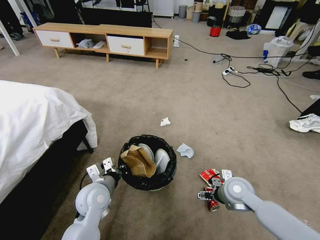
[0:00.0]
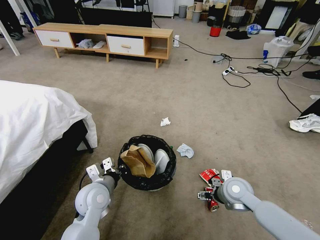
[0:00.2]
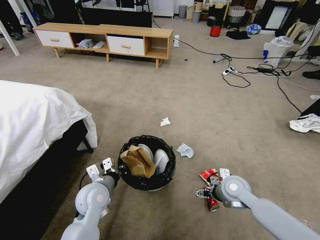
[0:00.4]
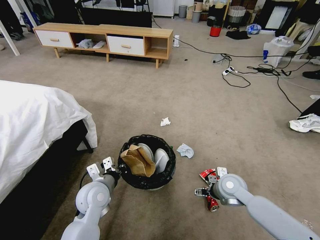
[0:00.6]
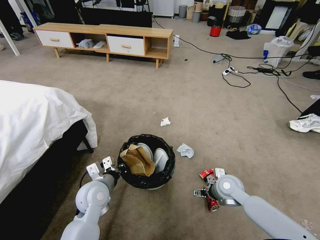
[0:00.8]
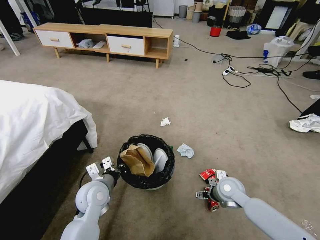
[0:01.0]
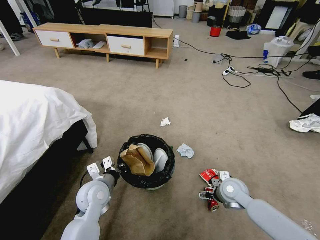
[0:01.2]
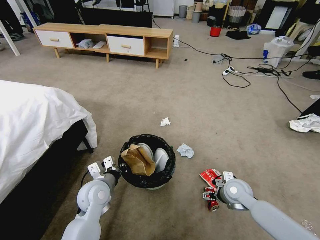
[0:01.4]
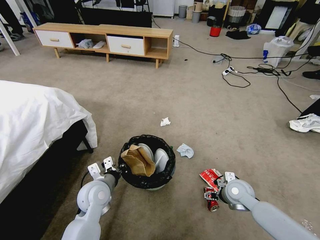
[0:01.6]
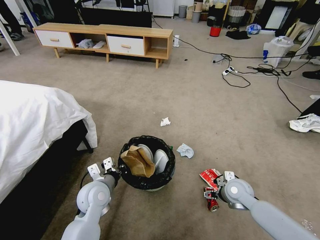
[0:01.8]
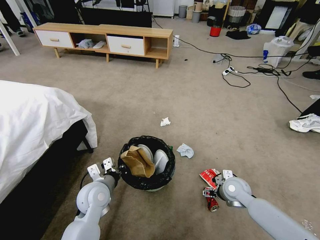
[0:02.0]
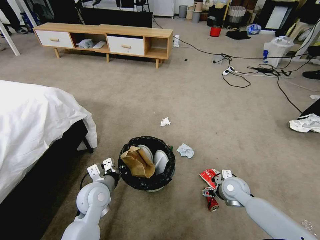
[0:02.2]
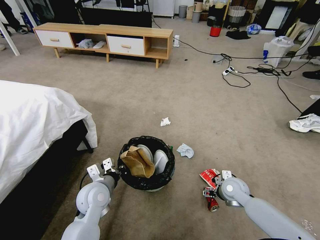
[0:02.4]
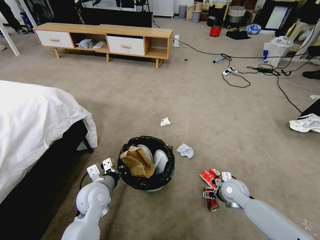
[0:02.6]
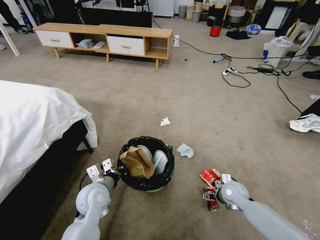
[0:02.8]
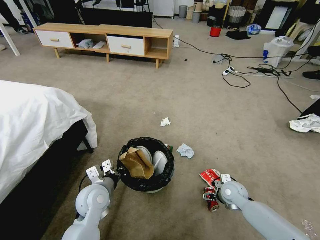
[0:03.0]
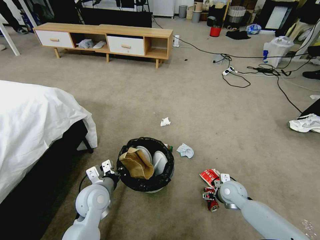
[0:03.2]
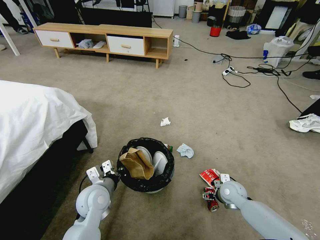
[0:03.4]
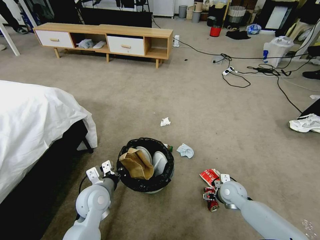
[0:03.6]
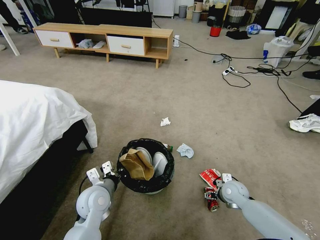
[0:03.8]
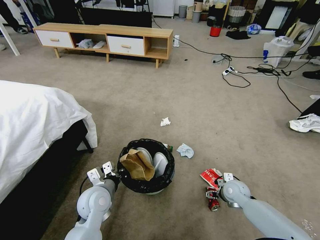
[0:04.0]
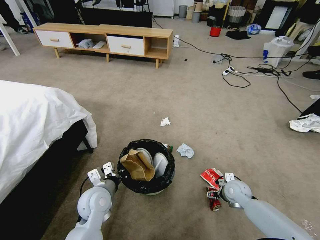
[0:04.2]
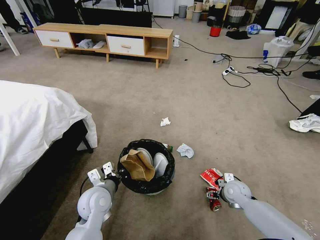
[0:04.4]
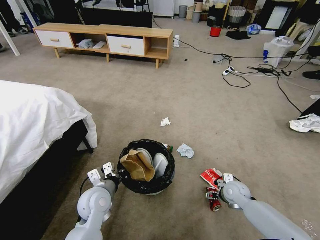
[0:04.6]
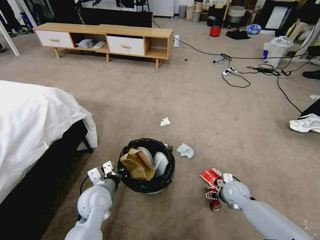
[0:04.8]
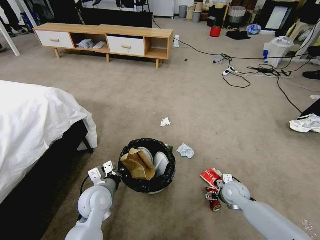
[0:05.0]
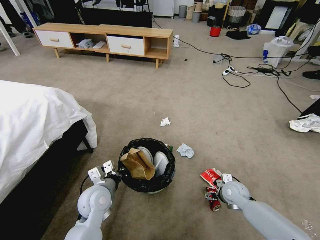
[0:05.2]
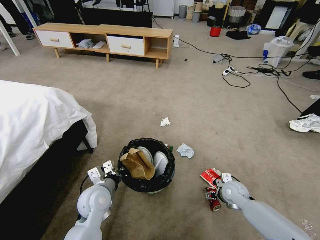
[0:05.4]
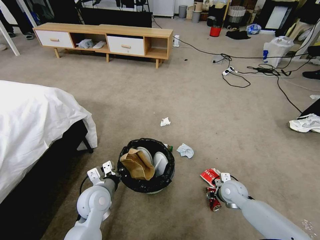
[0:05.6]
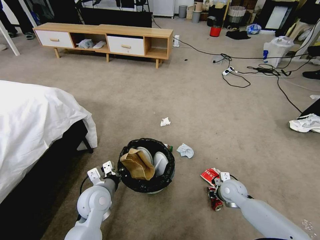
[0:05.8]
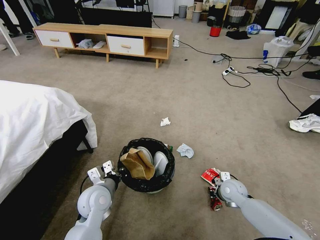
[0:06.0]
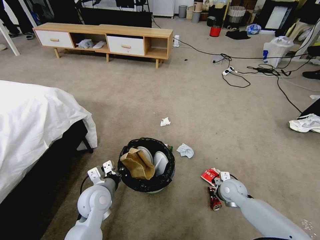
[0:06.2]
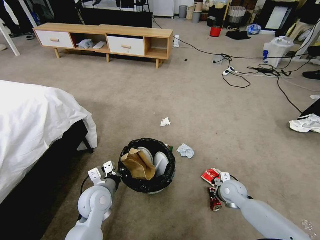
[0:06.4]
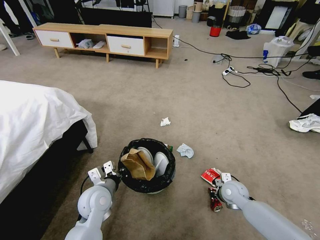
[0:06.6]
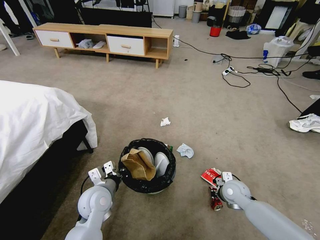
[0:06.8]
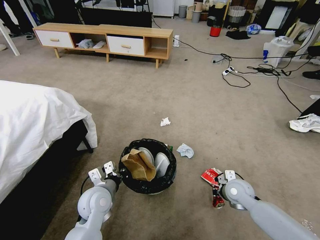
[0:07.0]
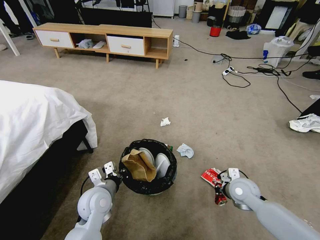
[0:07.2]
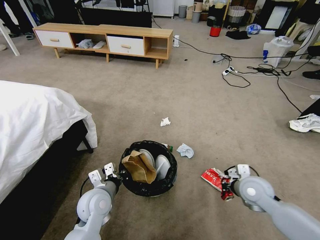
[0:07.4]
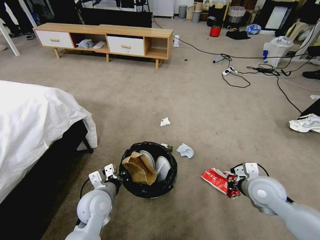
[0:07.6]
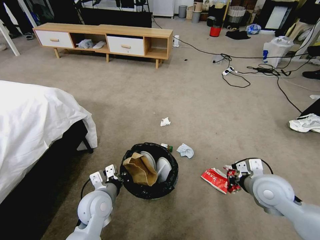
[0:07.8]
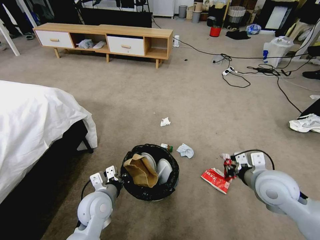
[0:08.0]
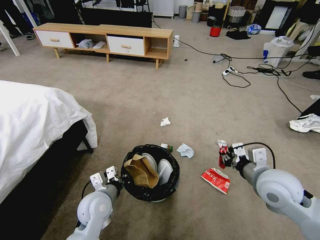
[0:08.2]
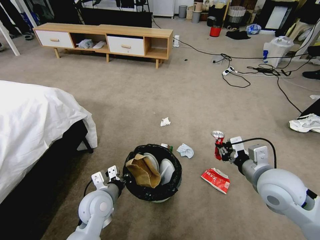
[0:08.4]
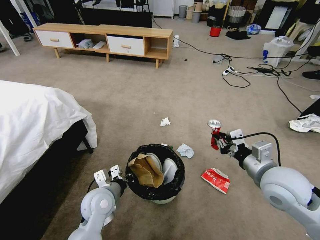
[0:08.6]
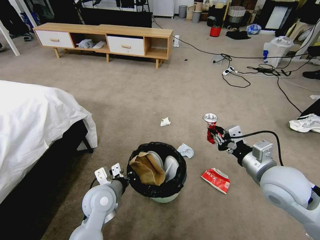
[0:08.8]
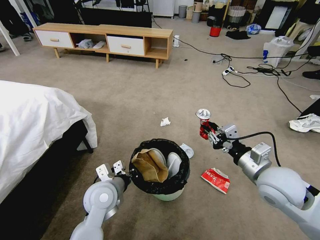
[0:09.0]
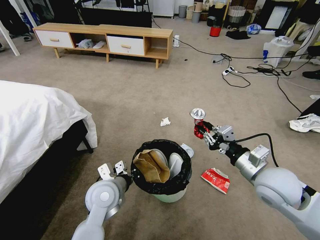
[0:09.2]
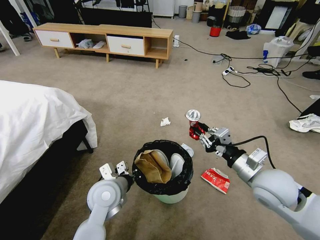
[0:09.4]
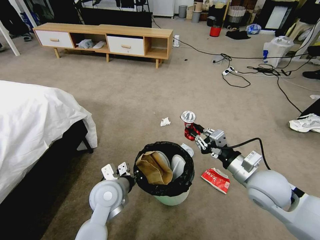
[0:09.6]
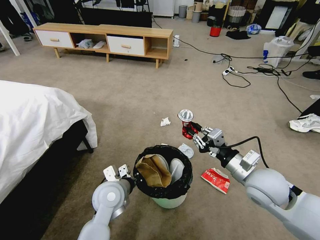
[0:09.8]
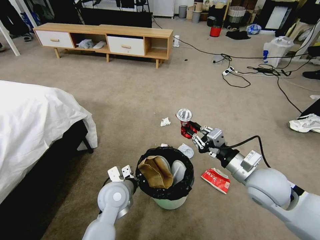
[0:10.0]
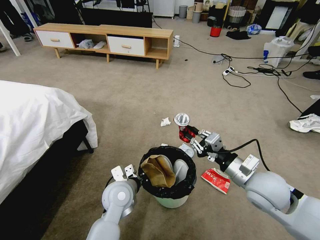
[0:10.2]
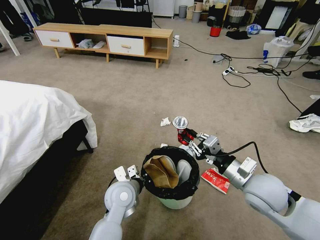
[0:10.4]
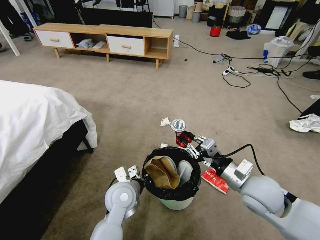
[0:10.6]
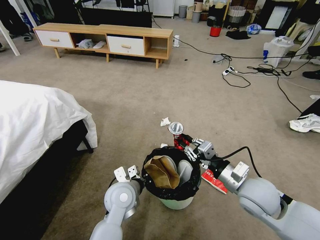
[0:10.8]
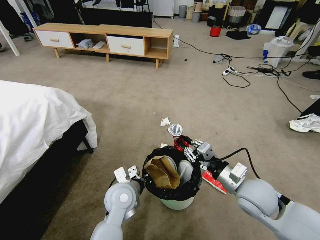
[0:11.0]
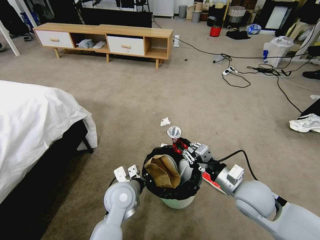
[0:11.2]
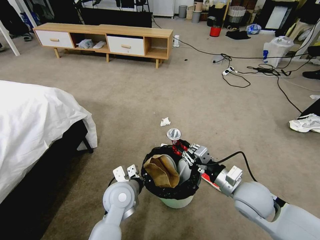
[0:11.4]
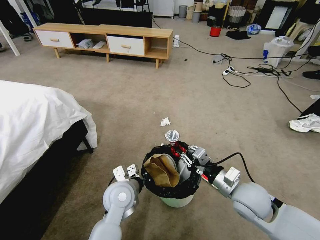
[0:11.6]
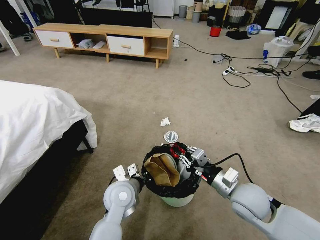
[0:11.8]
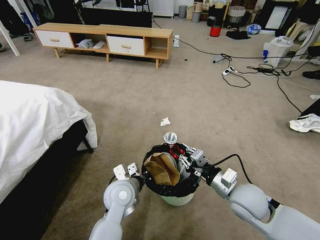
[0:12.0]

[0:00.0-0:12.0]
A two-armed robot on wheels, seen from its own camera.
Task of the whole recording: Pick up the trash bin, then pick up the garbage from the floor and place it into the trash bin.
0:00.0 to 0:01.6: The right gripper travels downward by about 5 cm.
0:01.6 to 0:03.0: The grippers stay close to where they were, moving slightly.
0:03.0 to 0:04.4: The grippers stay close to where they were, moving slightly.
0:04.4 to 0:06.0: The right gripper closes its fingers.
0:06.0 to 0:07.6: The right gripper goes some 15 cm upward and backward.
0:07.6 to 0:09.0: The right gripper is displaced upward by some 10 cm.
0:09.0 to 0:10.4: The left gripper shifts some 5 cm to the right.
0:10.4 to 0:12.0: The right gripper is displaced downward by some 5 cm.

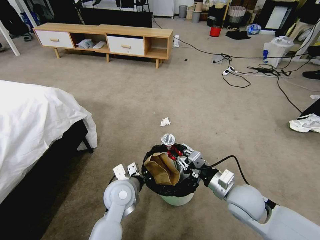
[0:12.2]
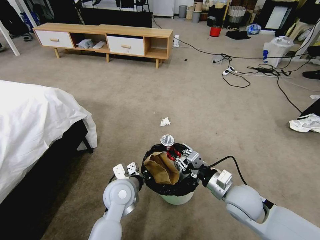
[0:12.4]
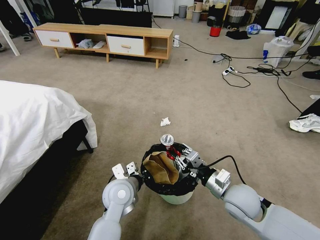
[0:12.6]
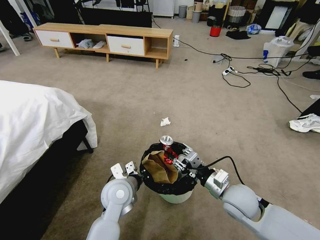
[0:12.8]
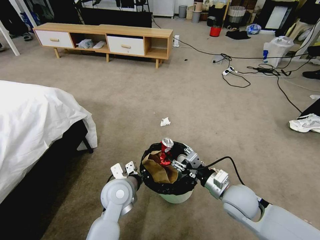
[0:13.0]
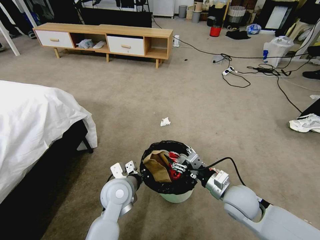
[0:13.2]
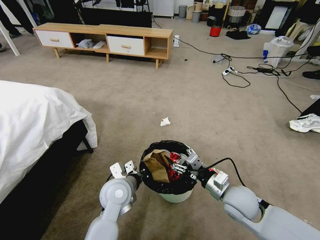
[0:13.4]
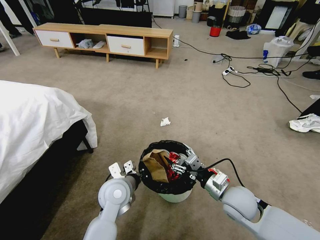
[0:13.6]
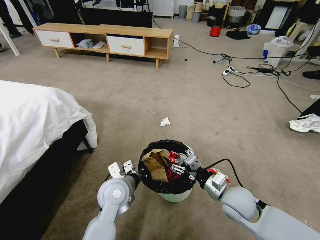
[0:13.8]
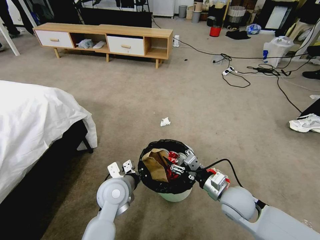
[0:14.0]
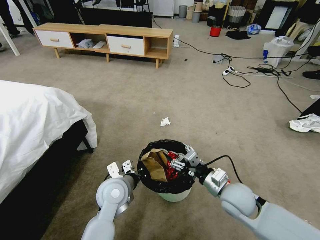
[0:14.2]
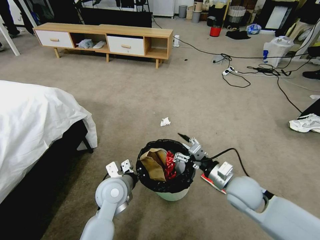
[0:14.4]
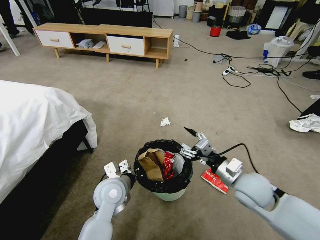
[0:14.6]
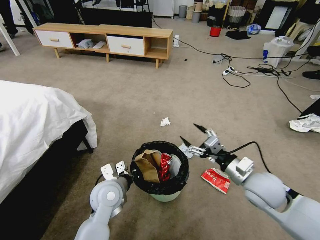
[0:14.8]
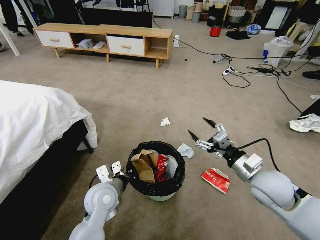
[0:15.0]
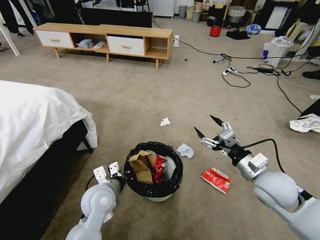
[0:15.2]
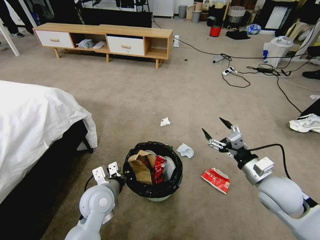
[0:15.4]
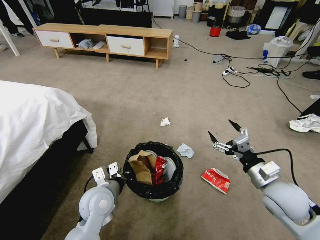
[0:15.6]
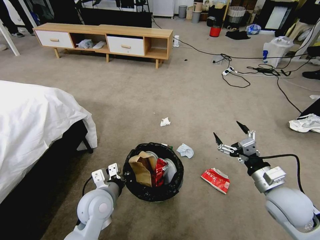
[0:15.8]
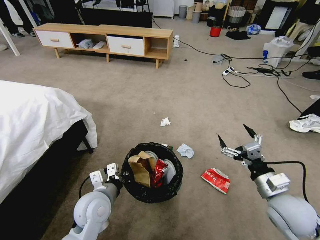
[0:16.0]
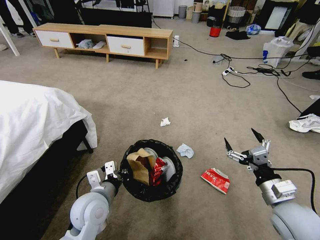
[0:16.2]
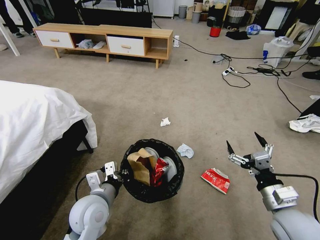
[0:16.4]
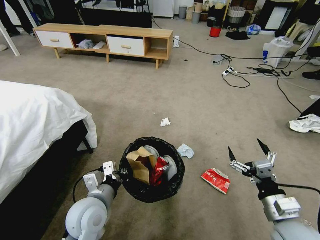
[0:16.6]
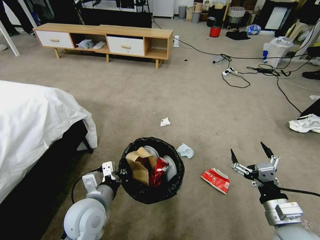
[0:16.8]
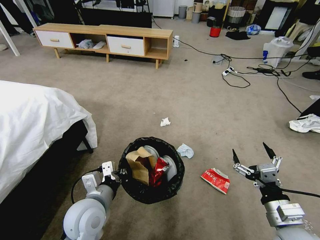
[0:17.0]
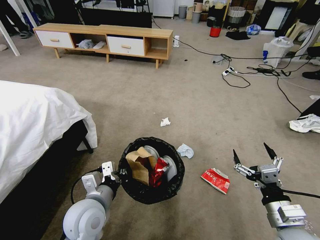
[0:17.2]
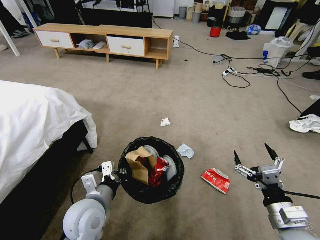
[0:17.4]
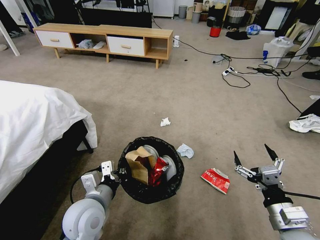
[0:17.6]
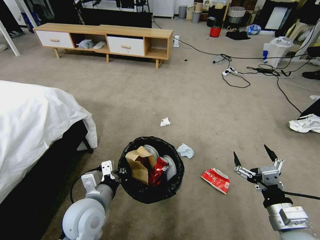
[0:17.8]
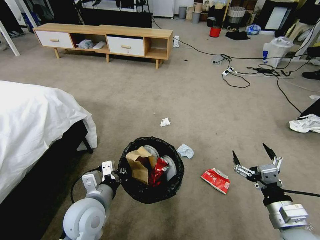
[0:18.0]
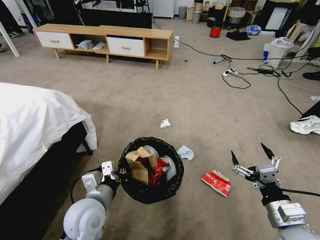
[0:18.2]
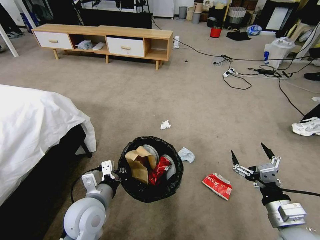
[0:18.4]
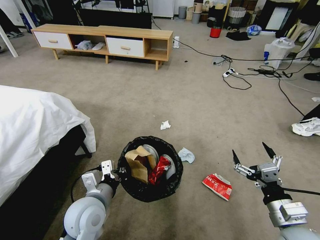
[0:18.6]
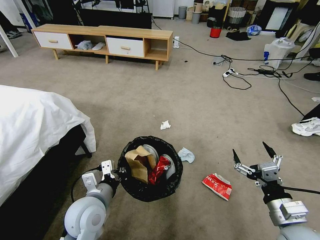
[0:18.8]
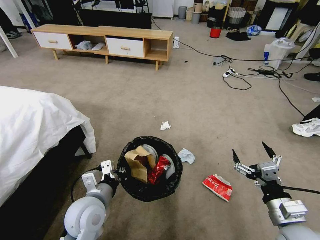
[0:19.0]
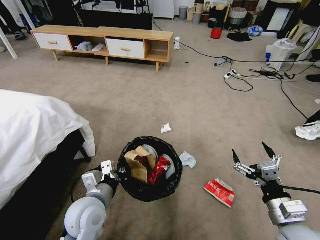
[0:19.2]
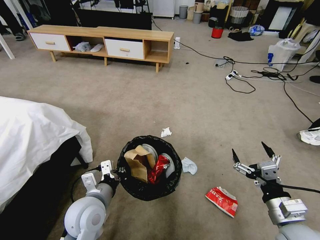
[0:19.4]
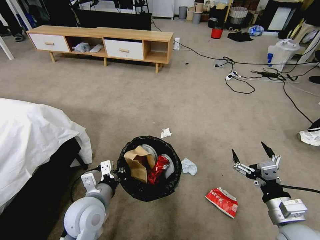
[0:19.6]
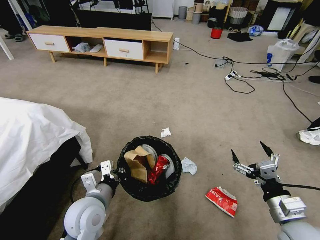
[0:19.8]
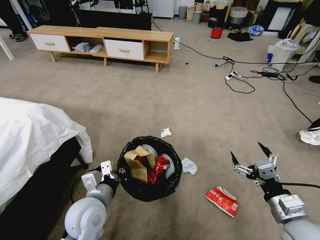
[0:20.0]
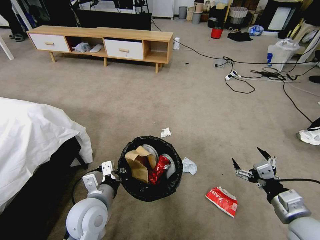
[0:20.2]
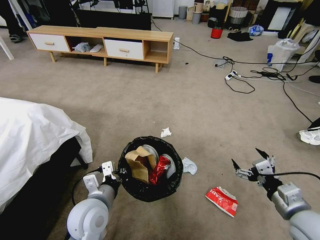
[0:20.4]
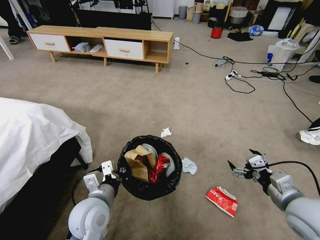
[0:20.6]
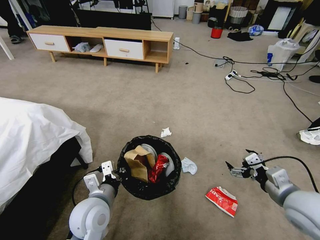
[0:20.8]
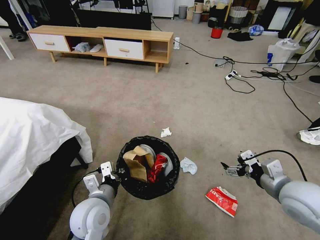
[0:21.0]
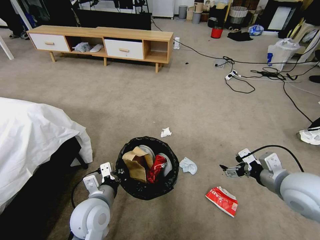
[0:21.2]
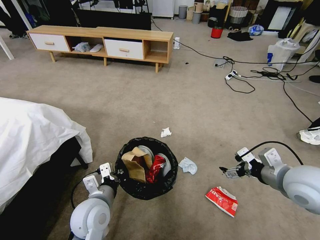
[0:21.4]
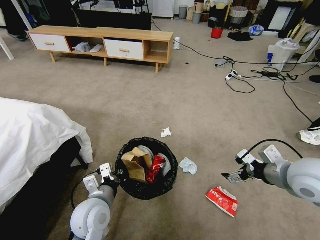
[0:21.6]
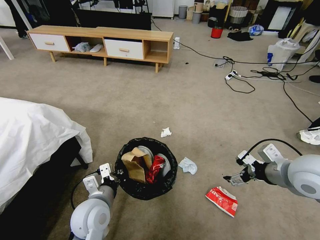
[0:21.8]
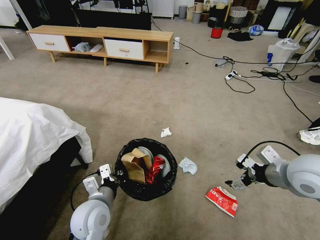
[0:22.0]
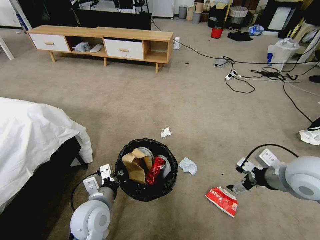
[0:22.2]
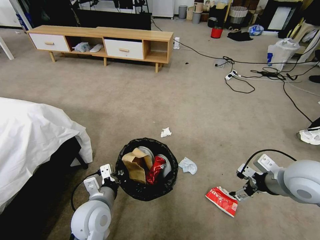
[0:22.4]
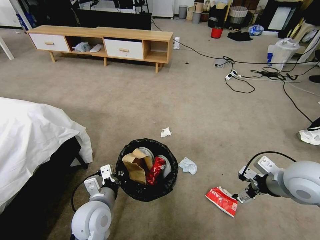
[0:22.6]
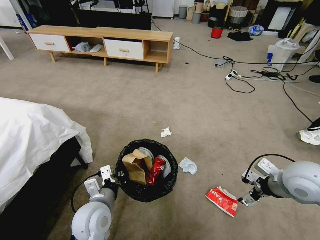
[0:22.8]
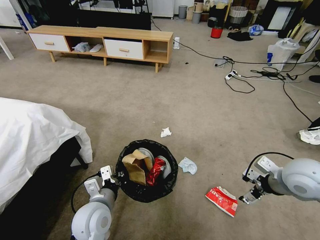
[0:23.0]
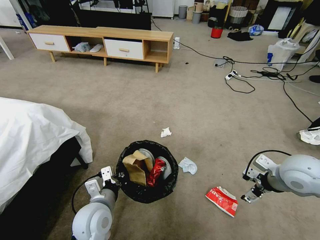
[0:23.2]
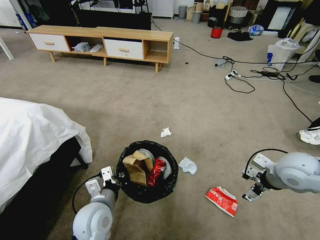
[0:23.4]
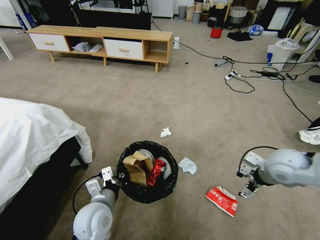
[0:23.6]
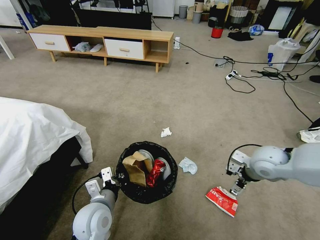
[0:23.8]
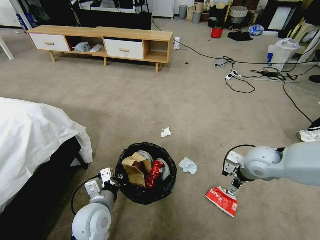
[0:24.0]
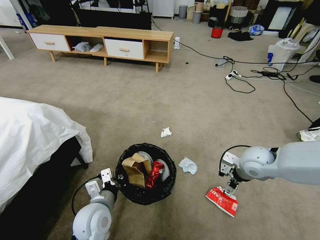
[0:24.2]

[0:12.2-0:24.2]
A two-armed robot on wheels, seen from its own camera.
Task of the whole recording: Pick up the trash bin, then pick up the garbage from the floor and place it into the trash bin.
0:12.2 to 0:13.8: The right gripper opens its fingers.
0:13.8 to 0:15.2: The right gripper moves upward and to the right, some 10 cm.
0:15.2 to 0:16.6: The left gripper travels backward by about 5 cm; the right gripper moves backward, about 10 cm.
0:16.6 to 0:18.2: There are only small adjustments of the grippers.
0:19.8 to 0:21.2: The right gripper shifts approximately 15 cm forward and upward.
0:22.6 to 0:24.2: The right gripper shifts about 10 cm forward and downward.
